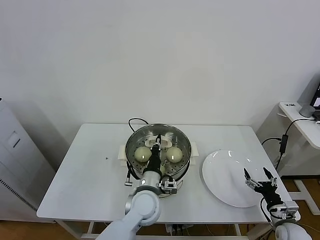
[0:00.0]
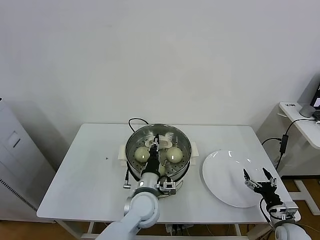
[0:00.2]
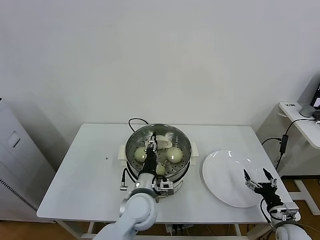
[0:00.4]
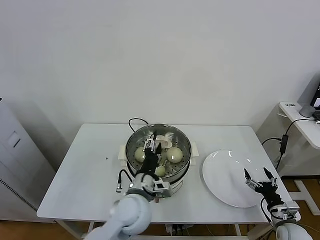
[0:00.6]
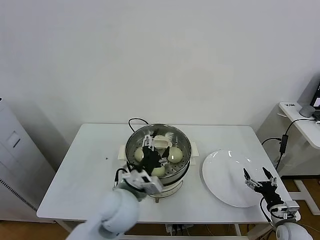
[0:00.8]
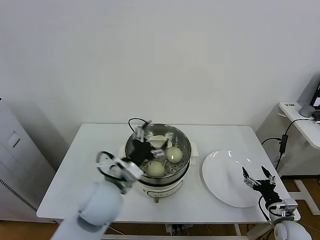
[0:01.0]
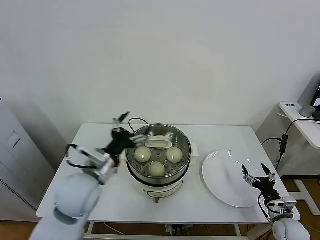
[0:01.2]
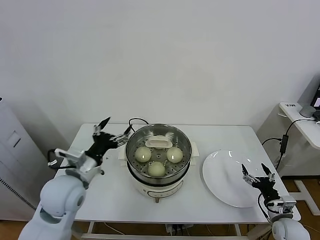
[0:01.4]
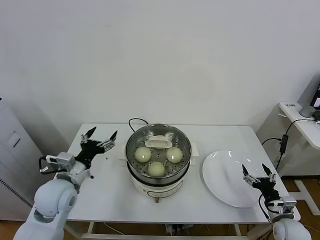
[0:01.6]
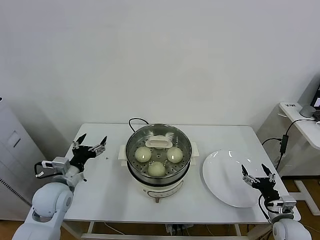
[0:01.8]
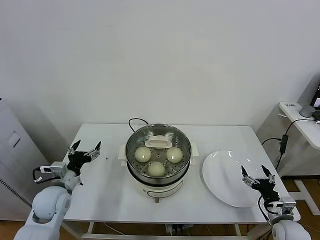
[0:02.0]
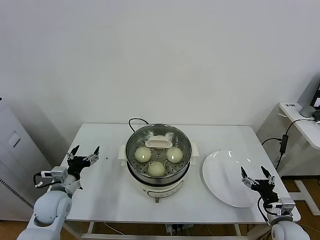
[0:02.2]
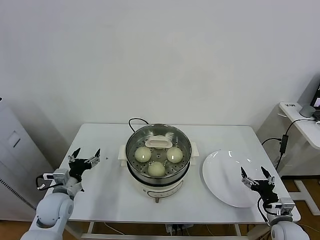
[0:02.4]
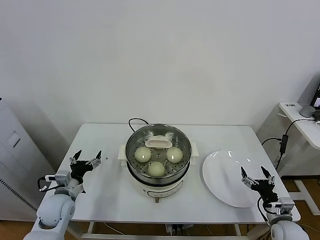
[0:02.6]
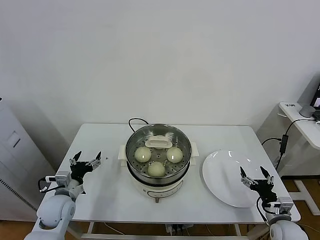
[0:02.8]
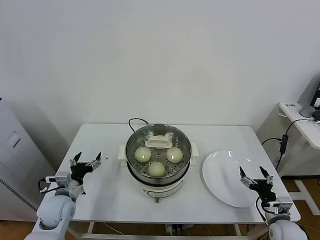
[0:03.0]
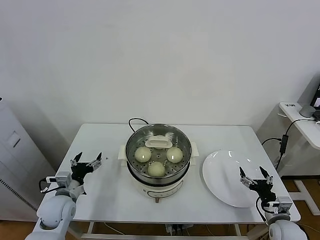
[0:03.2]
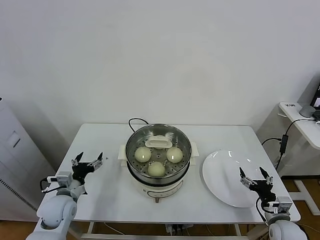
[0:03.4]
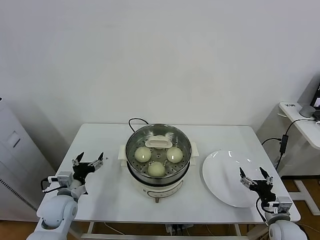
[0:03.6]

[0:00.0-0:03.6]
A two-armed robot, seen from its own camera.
Task of the whole recording: take steamed baozi put them in steamer.
0:00.0 to 0:01.8: The left gripper is displaced to the left by some 25 cm, and opens up.
0:01.8 to 0:03.6: The left gripper shifts about 10 cm downward.
